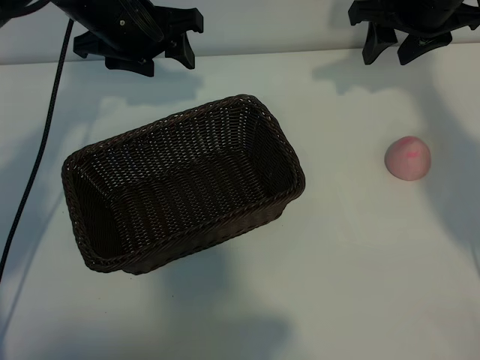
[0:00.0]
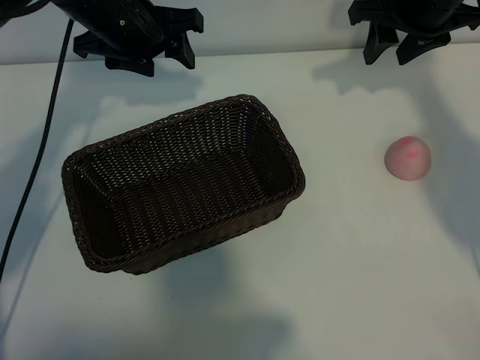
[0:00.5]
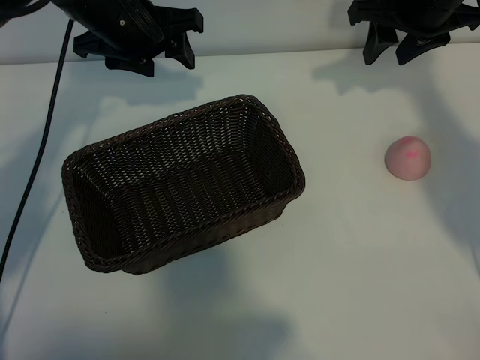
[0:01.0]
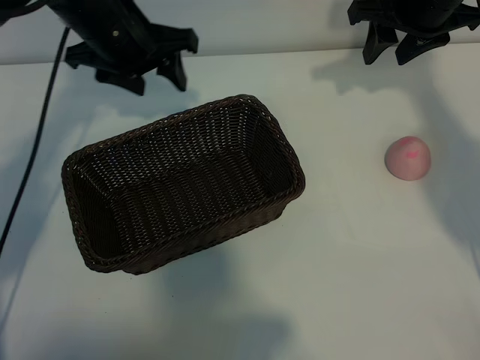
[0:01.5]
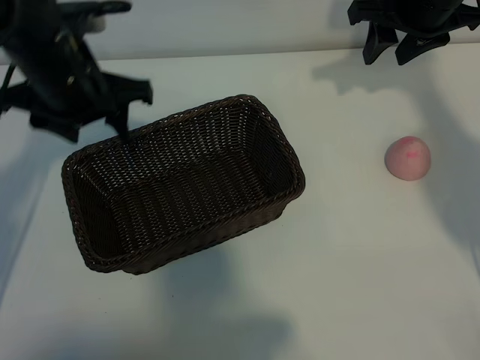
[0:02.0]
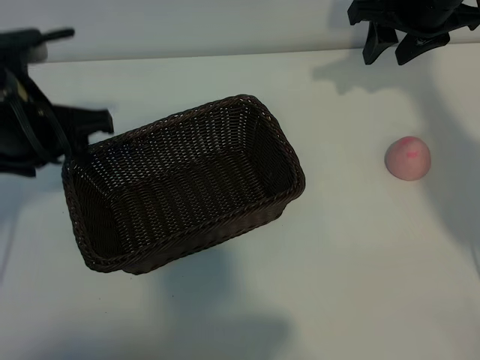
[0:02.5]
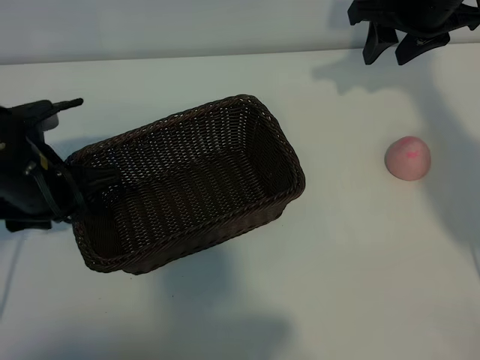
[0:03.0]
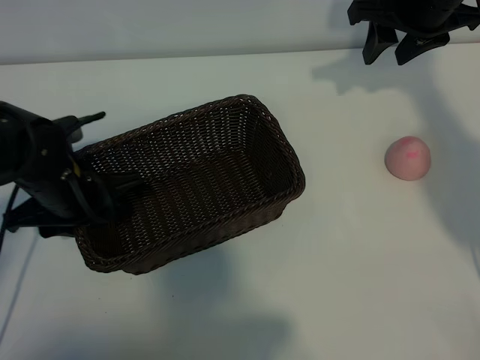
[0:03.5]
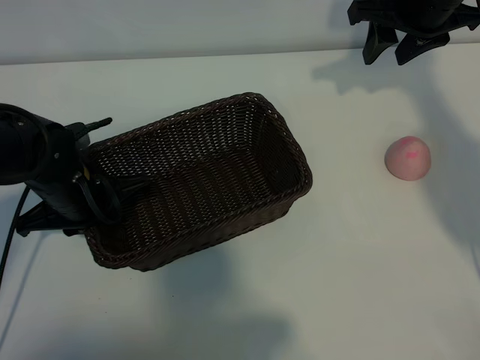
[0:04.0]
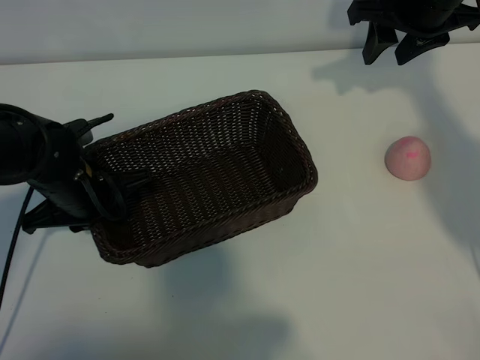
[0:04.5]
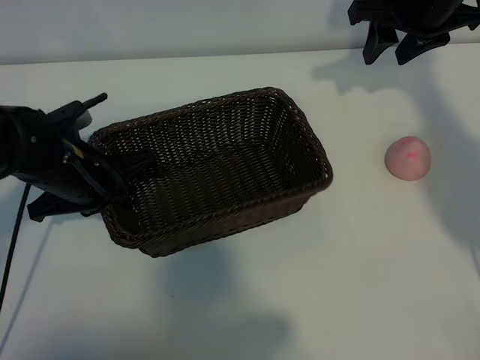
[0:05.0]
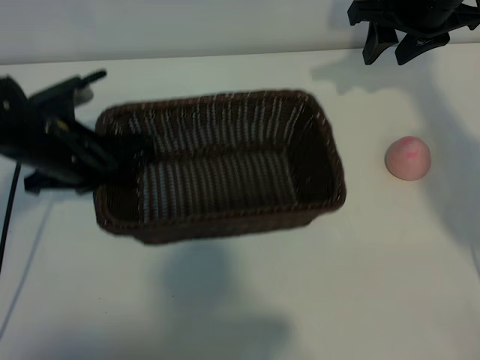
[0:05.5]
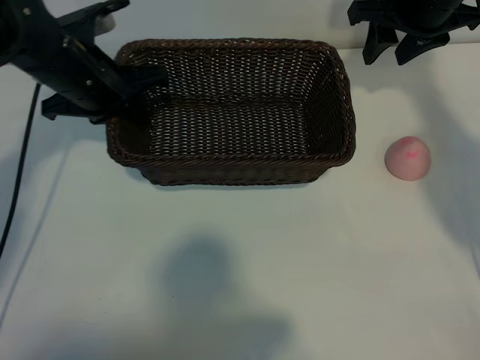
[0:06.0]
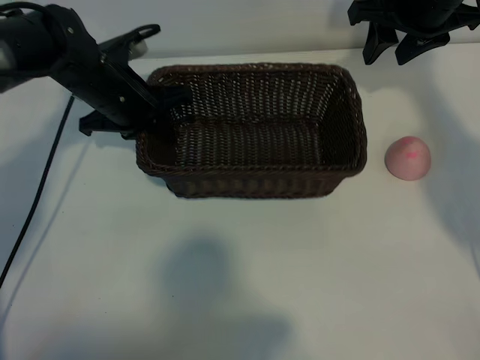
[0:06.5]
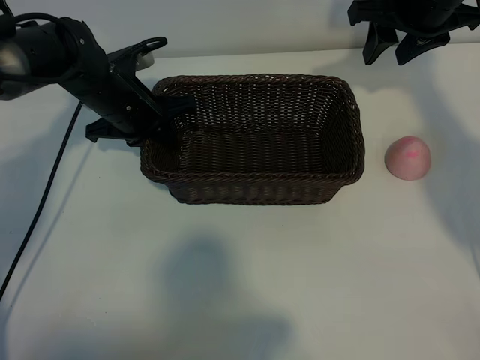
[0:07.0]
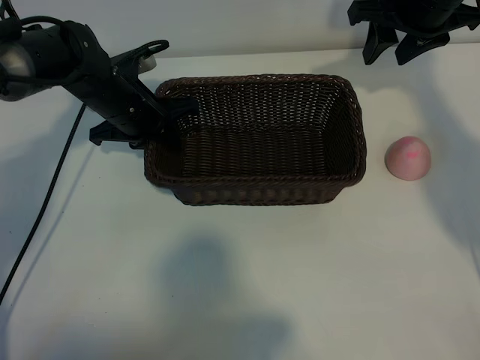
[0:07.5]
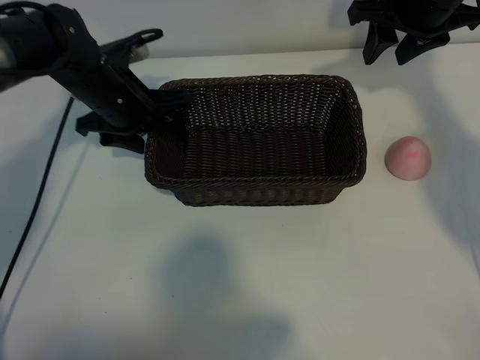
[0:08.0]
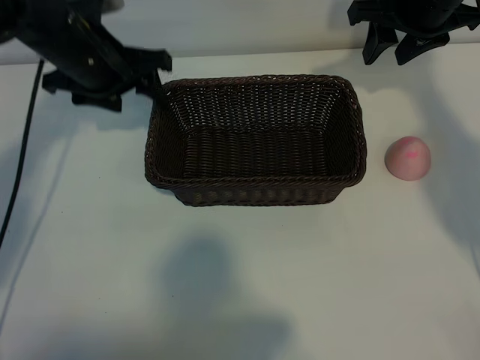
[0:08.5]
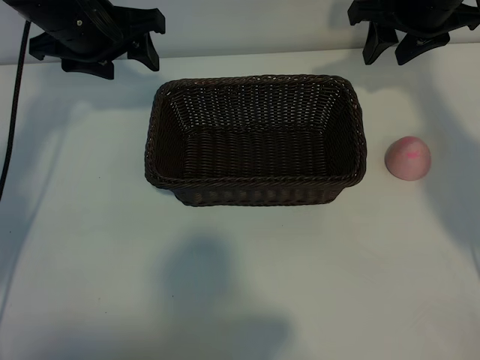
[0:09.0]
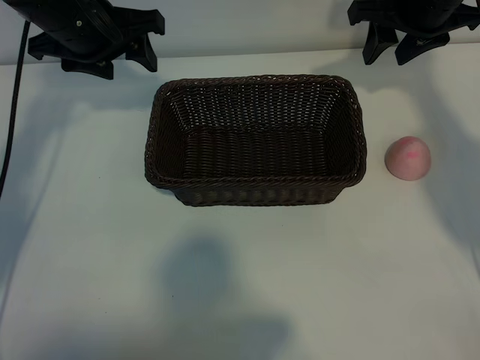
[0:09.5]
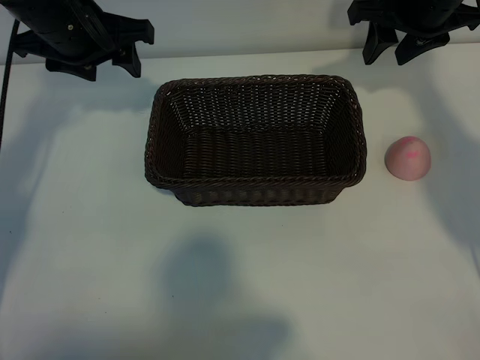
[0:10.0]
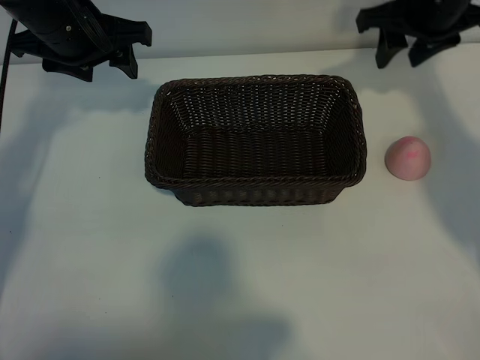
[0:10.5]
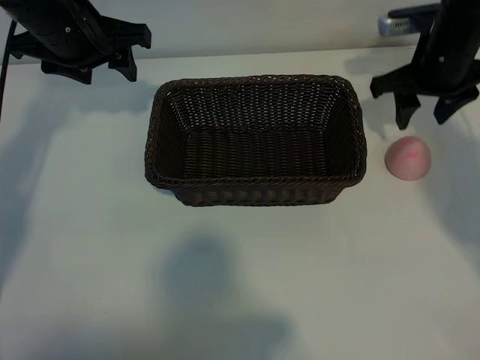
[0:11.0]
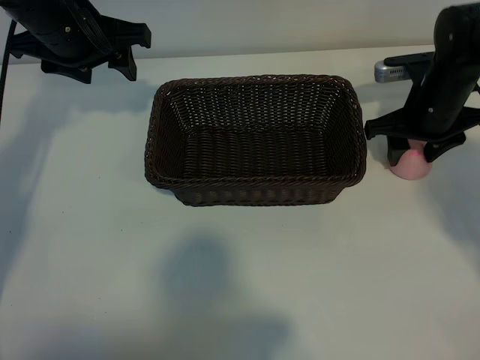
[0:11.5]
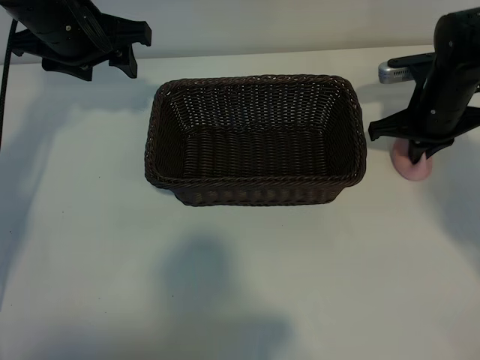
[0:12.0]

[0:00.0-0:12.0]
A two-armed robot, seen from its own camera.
Task of the whole recording: pick up the peach and put it into the basket.
Step, 0:01.5 to 0:04.0: Grasp the basket with left gripper.
Step, 0:04.5 to 0:07.5: Place the basket in the center of view with left gripper.
Step, 0:08.0 to 0:11.5: Grasp the peach with right gripper.

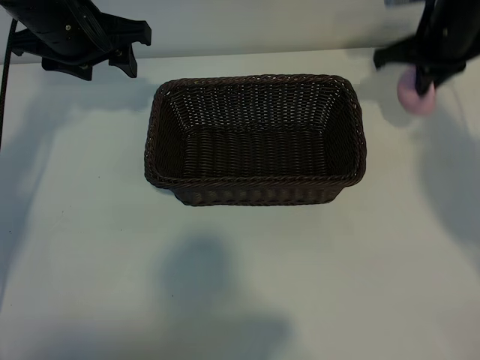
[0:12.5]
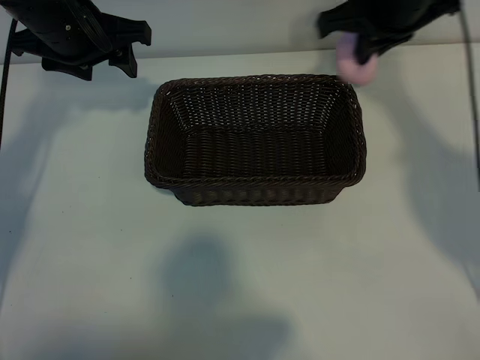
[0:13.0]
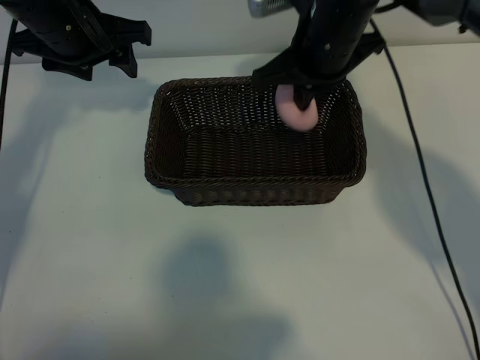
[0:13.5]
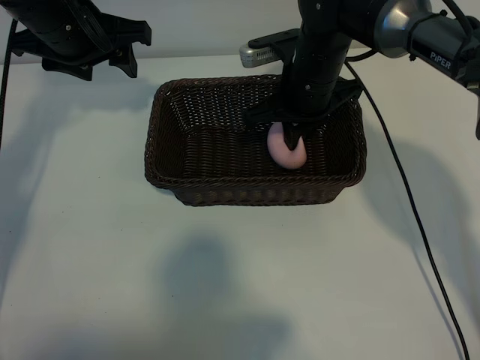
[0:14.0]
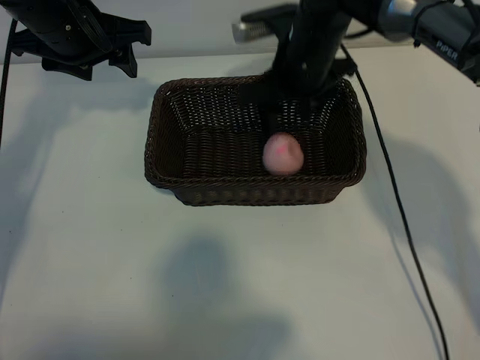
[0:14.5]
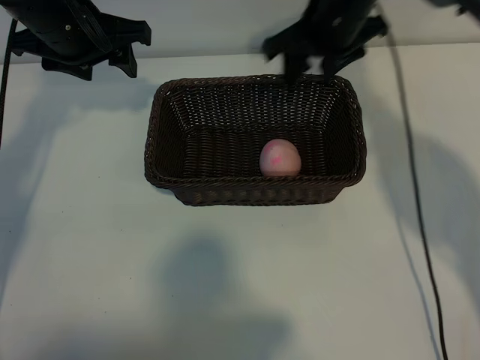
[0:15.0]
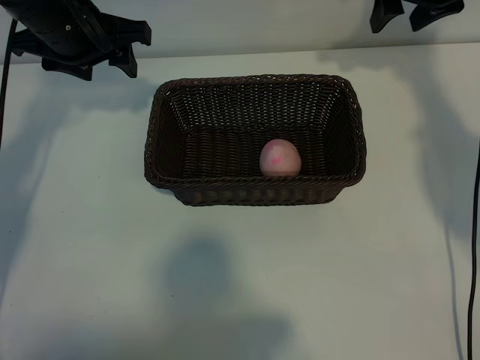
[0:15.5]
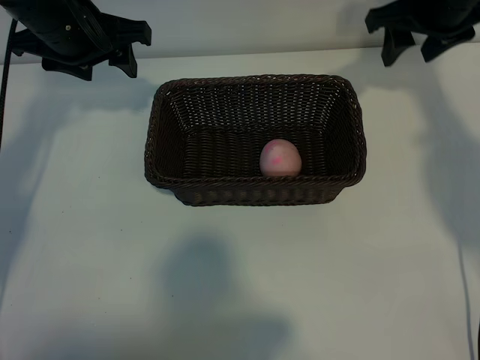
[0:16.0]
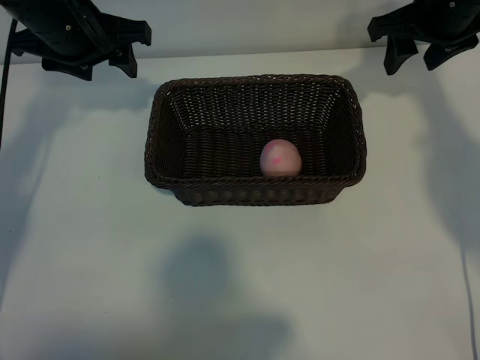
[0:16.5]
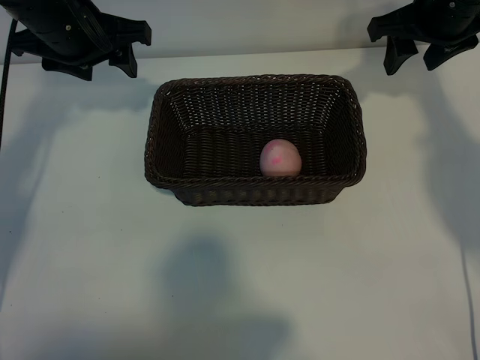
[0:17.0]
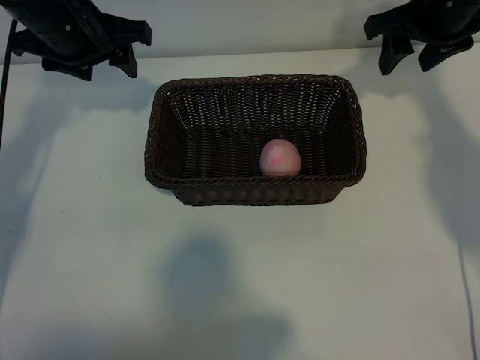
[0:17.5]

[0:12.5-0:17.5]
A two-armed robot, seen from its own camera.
Task of the whole recording: pick up the peach and put it into the basket.
Step, 0:12.5 to 0:14.0: Place the peach in the basket with right gripper.

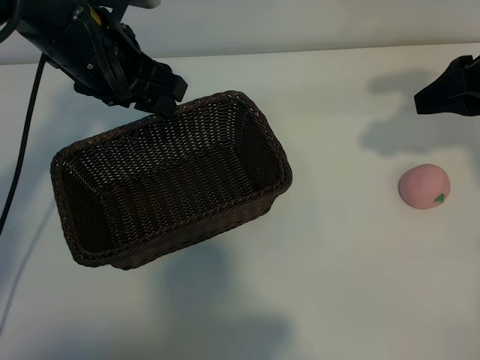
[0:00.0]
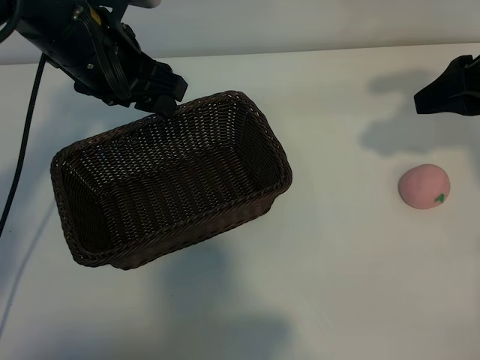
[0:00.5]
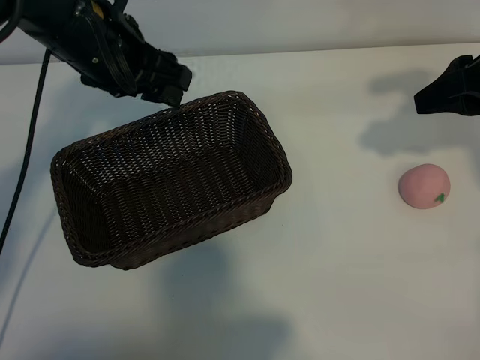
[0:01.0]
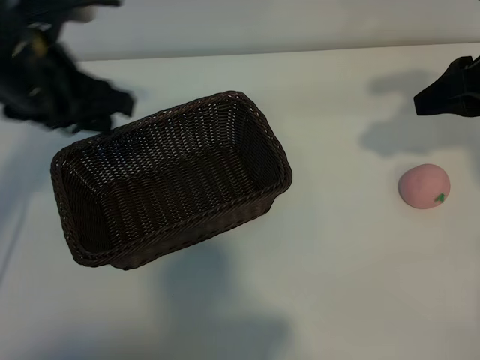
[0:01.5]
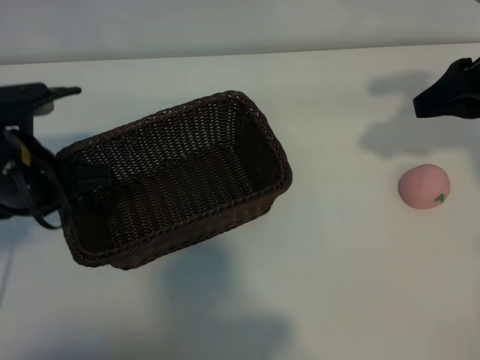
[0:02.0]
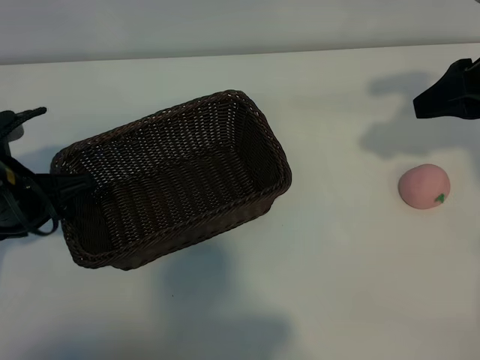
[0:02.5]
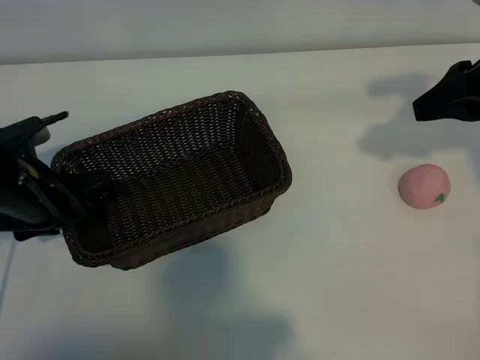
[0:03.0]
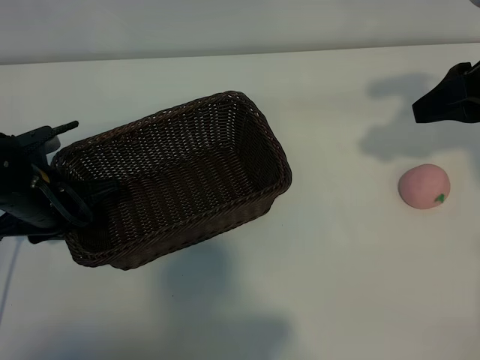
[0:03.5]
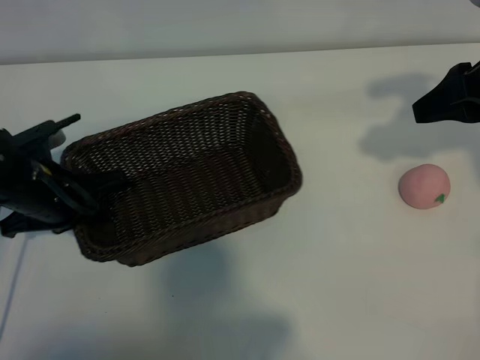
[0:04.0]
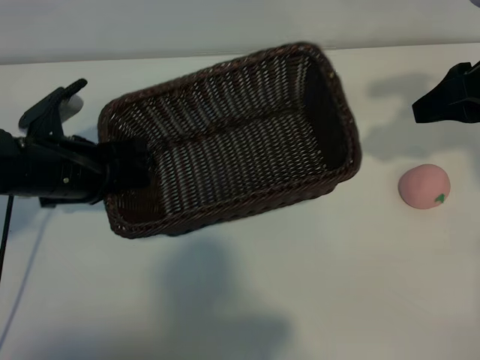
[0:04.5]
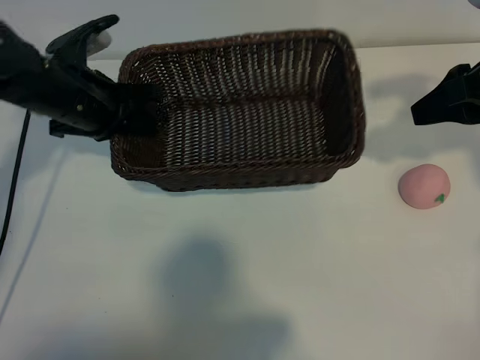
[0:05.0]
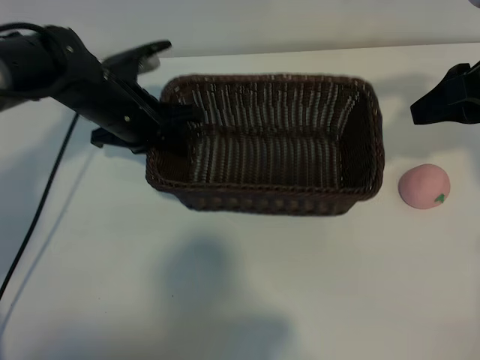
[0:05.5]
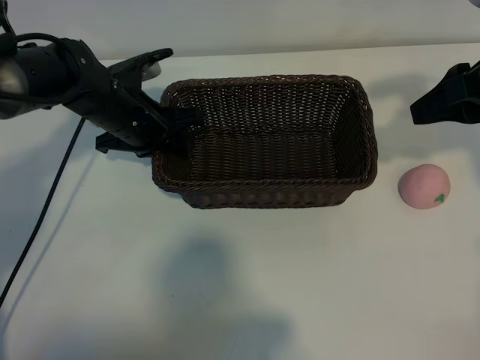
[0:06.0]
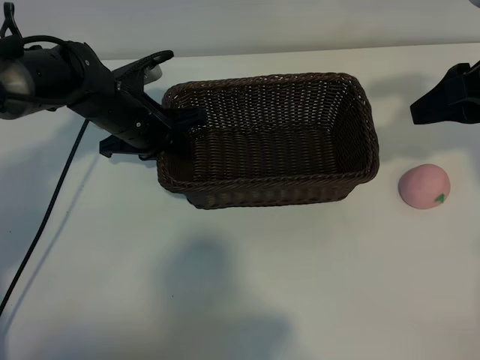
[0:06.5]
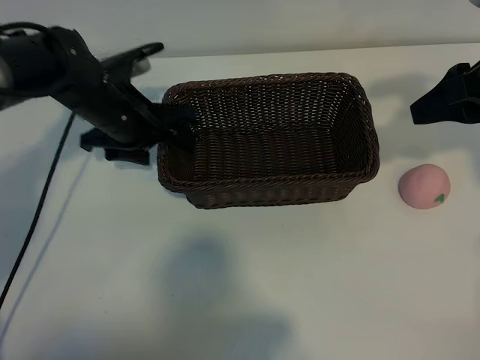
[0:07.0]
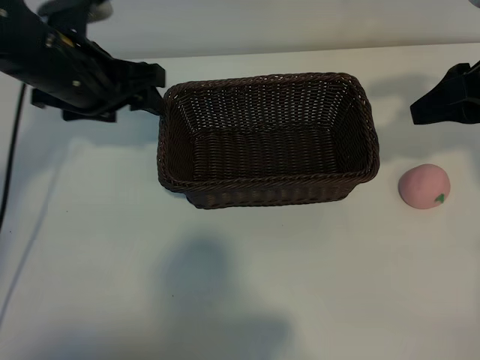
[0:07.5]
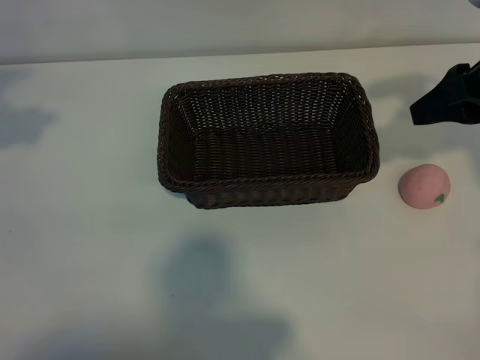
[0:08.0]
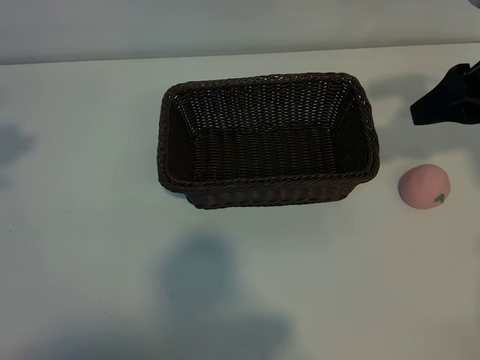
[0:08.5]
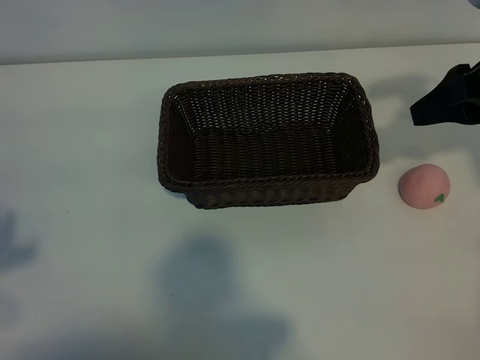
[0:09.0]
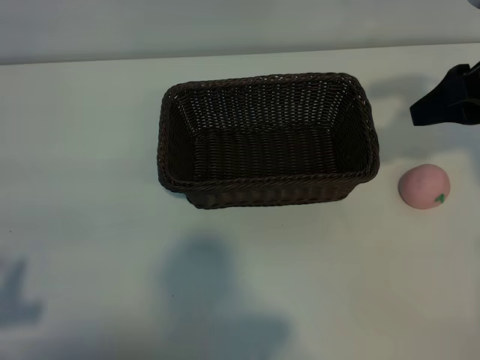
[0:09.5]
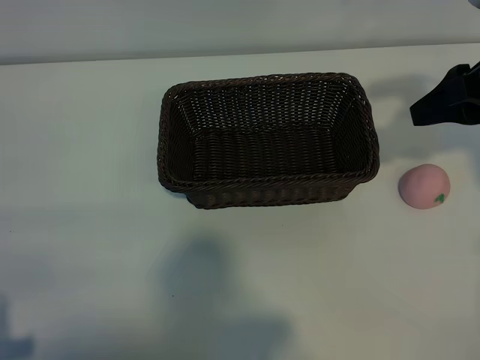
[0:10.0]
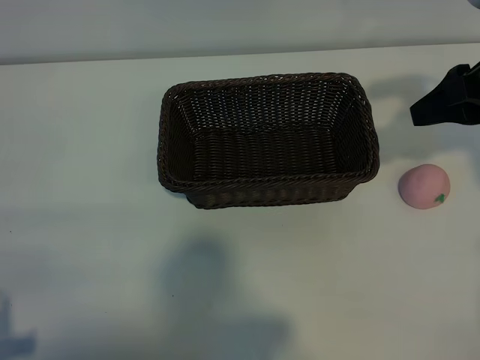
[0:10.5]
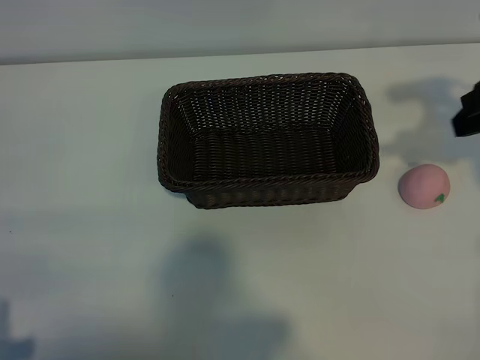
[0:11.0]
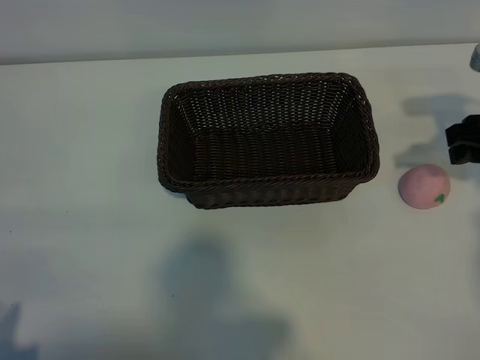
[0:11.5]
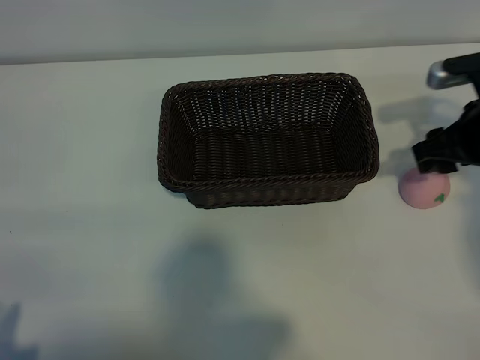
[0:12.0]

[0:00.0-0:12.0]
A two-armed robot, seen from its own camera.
Task of the whole recording: pick up the peach and put it into the basket.
Step, 0:01.0 to 0:03.5: Grasp the basket with left gripper.
Step, 0:04.0 to 0:07.0: Place the basket in the center of view with left gripper.
